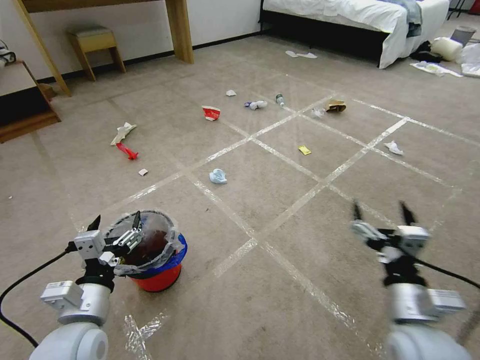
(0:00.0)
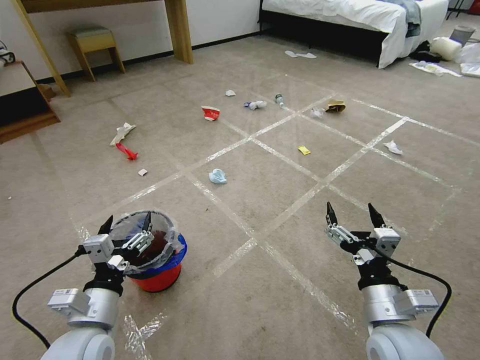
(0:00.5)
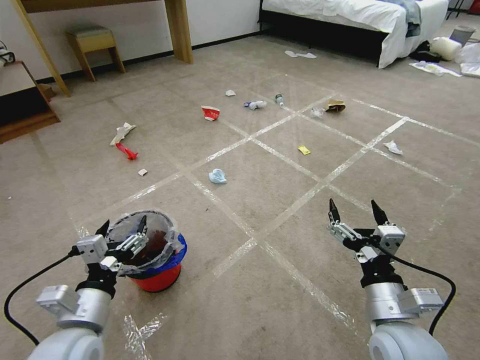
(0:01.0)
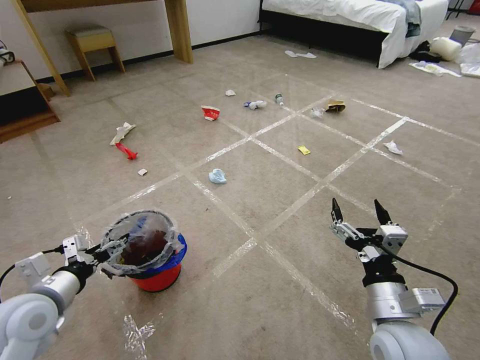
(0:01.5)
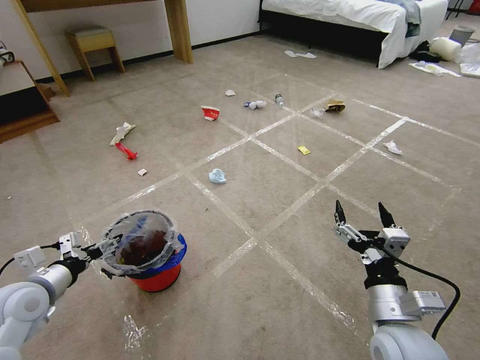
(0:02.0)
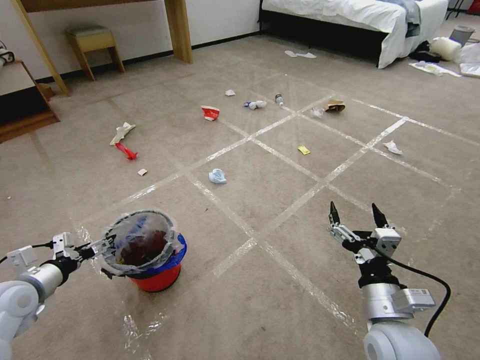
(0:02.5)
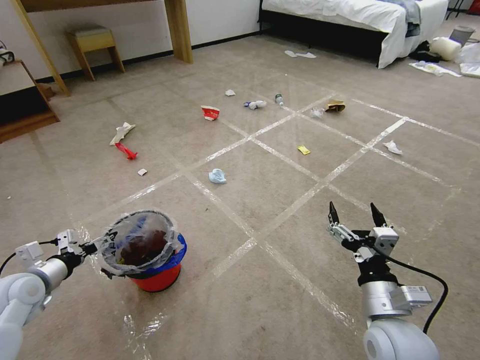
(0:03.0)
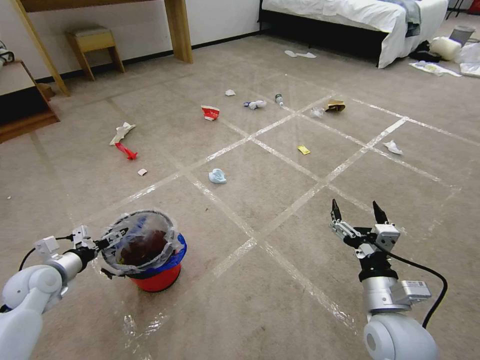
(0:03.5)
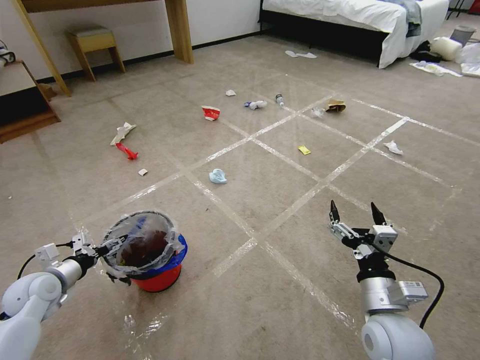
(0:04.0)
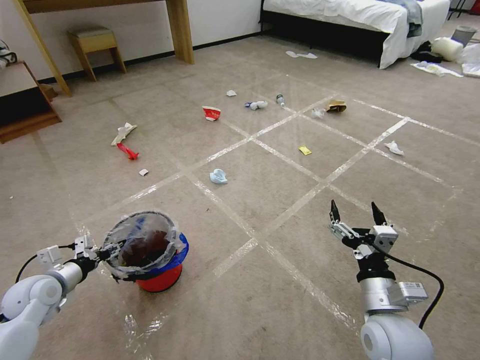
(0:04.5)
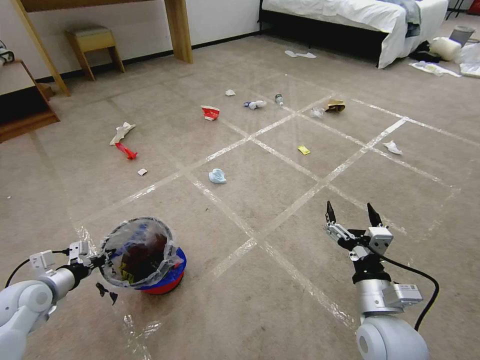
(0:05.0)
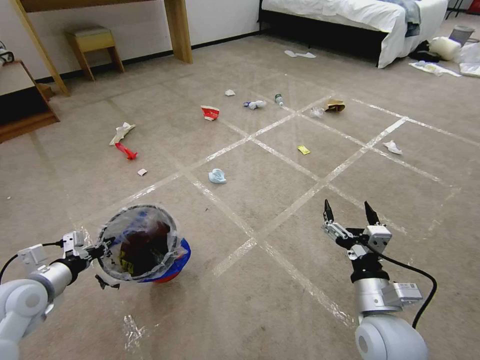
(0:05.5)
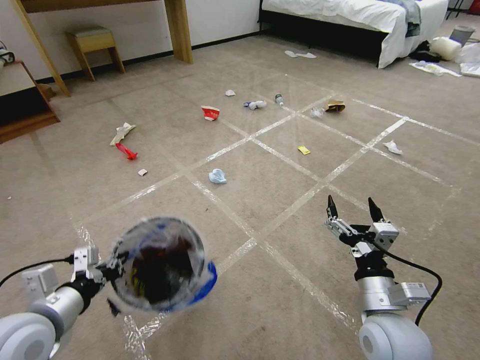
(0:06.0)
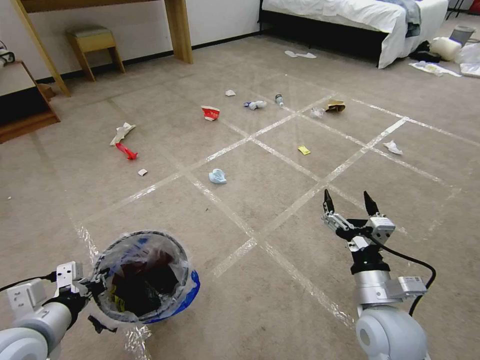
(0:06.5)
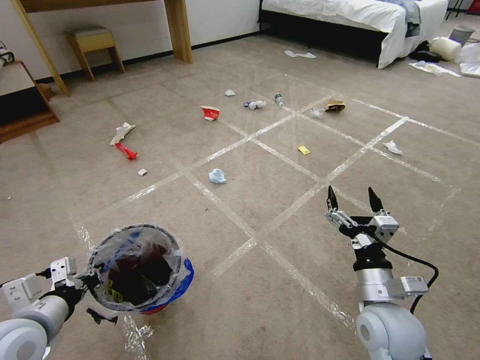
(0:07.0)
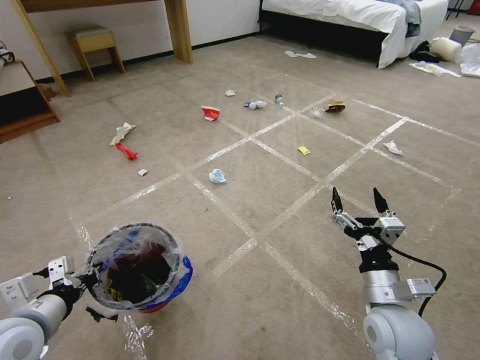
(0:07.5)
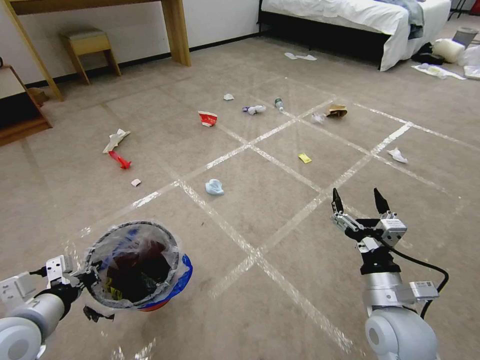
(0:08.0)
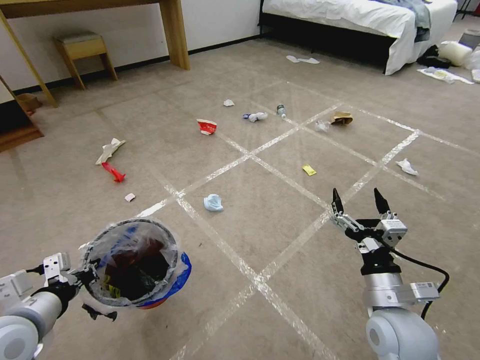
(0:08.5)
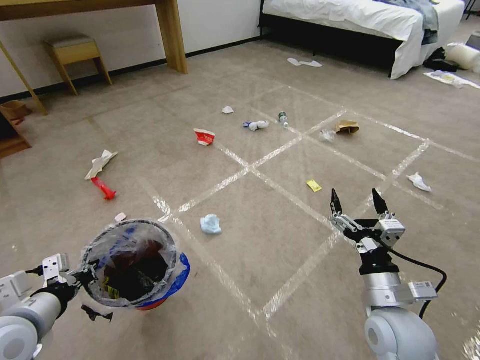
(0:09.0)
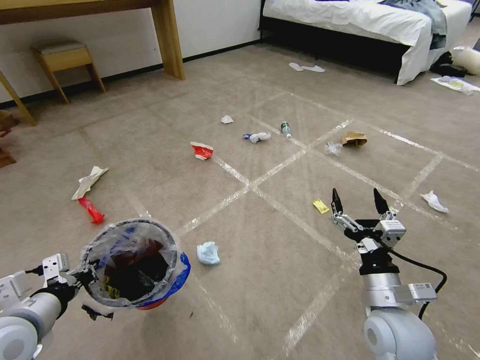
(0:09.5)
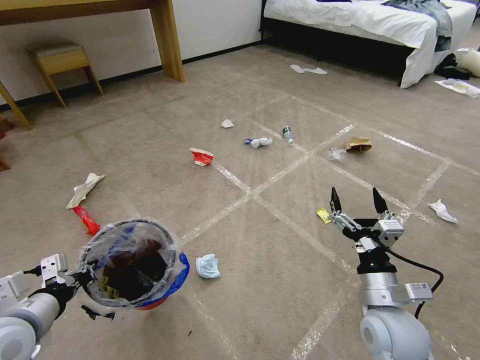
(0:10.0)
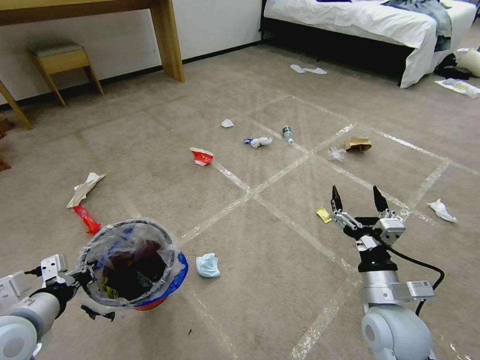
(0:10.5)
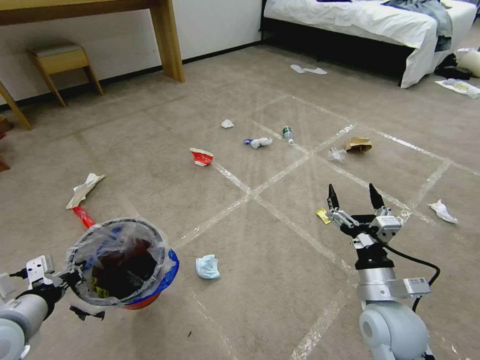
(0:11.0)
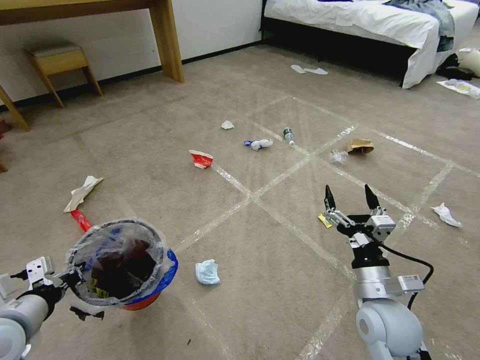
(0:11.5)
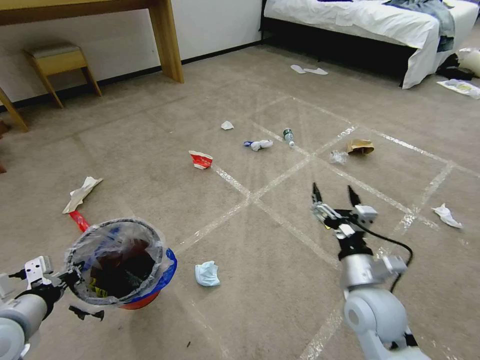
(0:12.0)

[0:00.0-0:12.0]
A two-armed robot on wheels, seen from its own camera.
Task of the whole recording: Pick up the trash bin and place the garbage on the floor into it.
0:02.0 to 0:04.0: The left gripper travels downward and forward by about 10 cm.
0:04.0 to 0:06.0: The left gripper heads to the right, backward and upward, covering roughly 20 cm, and closes.
0:10.0 to 0:12.0: The grippers stay close to where they were, moving slightly.

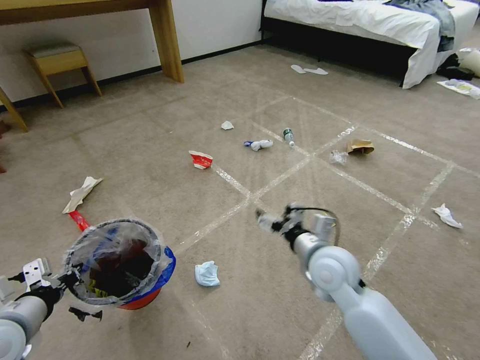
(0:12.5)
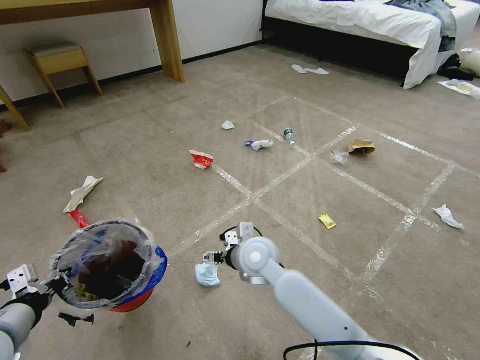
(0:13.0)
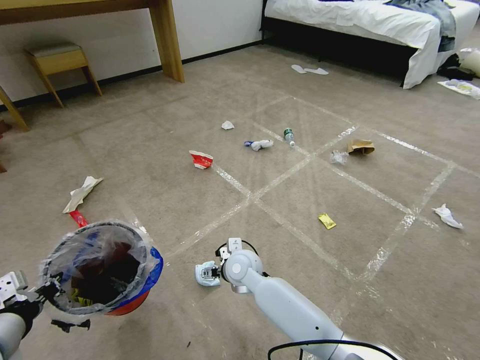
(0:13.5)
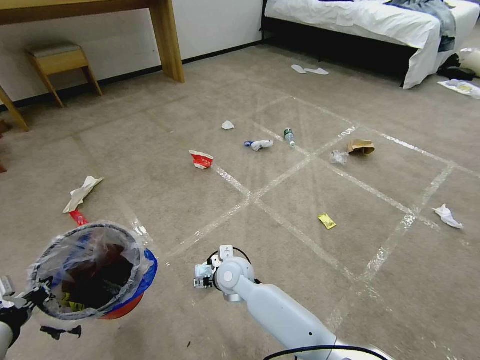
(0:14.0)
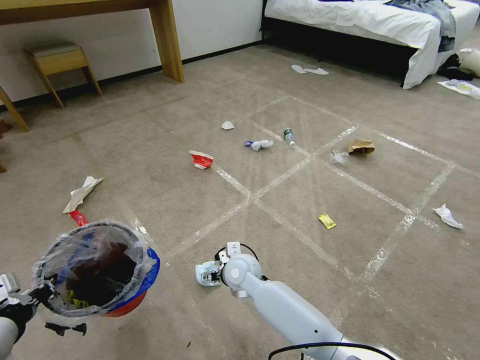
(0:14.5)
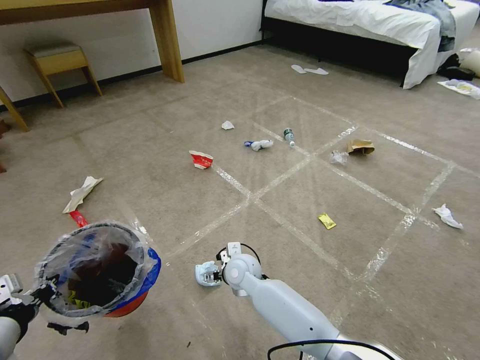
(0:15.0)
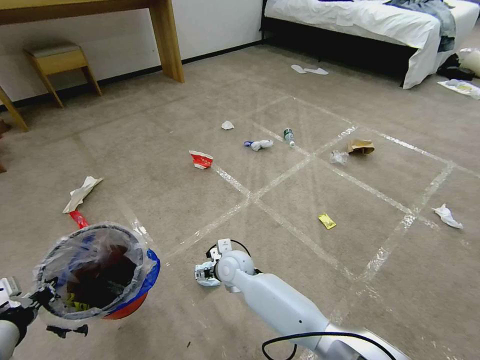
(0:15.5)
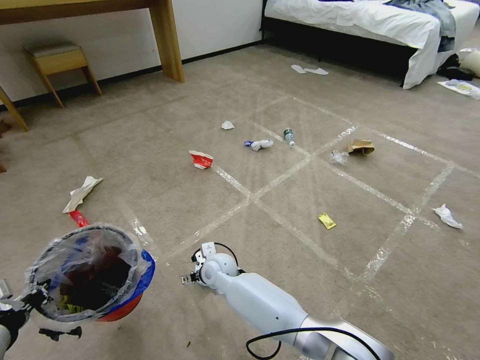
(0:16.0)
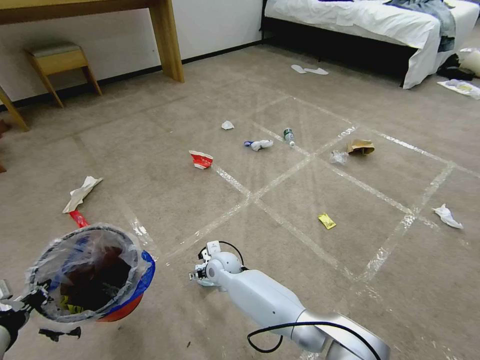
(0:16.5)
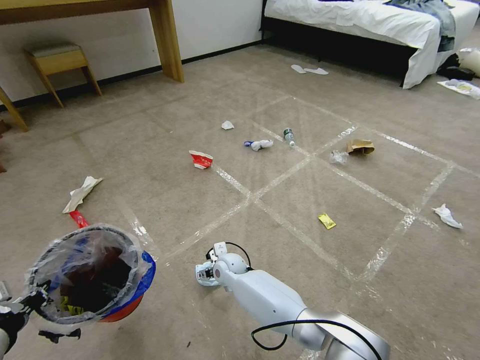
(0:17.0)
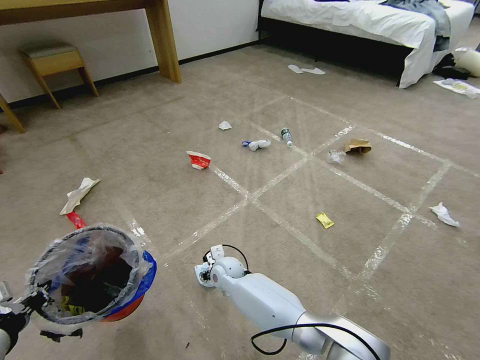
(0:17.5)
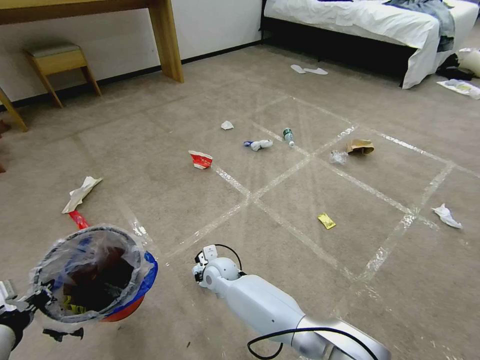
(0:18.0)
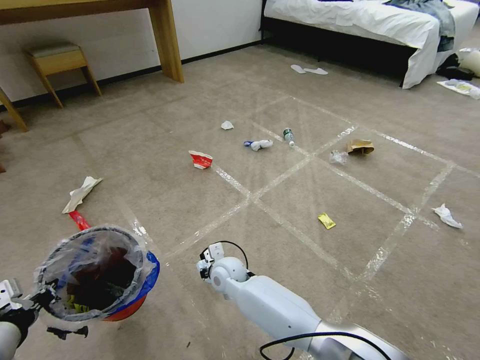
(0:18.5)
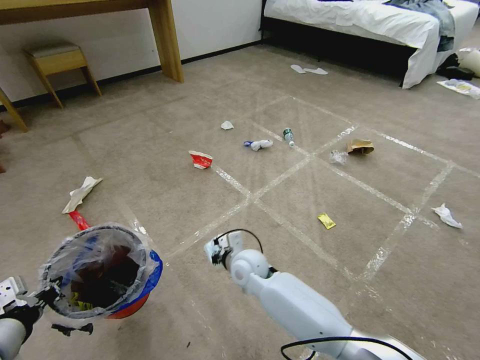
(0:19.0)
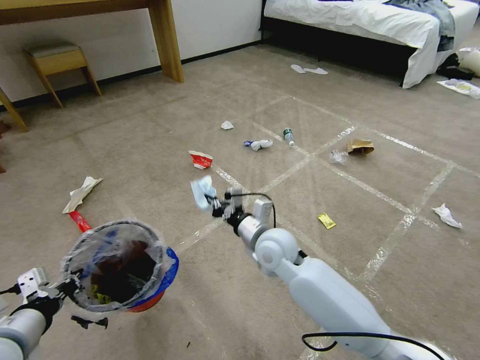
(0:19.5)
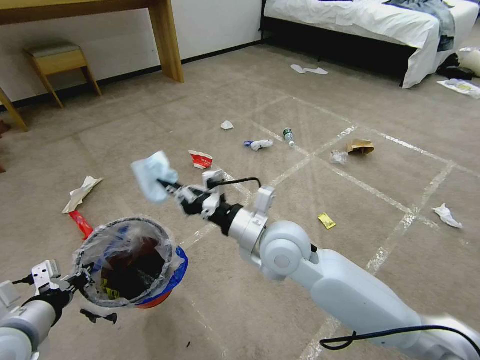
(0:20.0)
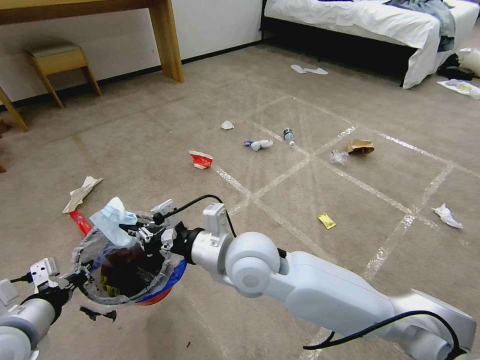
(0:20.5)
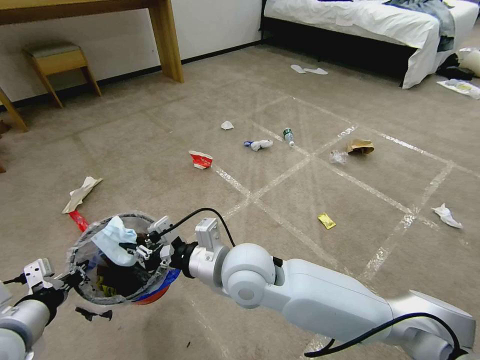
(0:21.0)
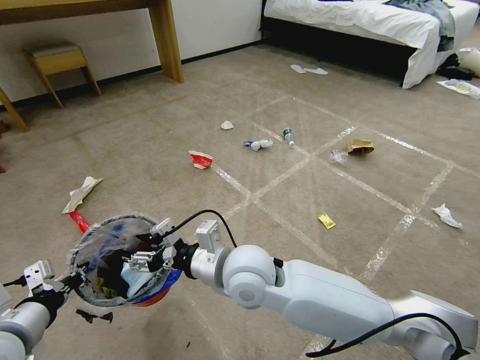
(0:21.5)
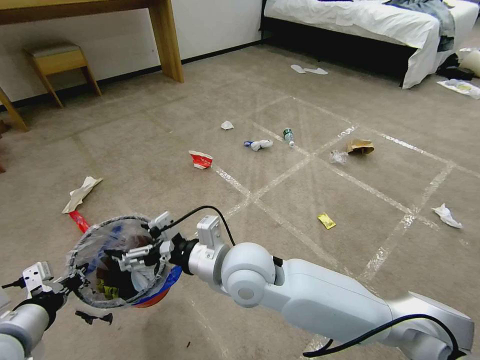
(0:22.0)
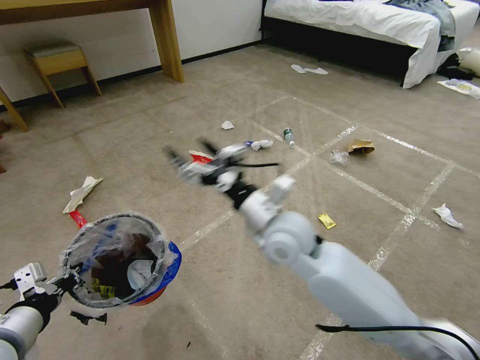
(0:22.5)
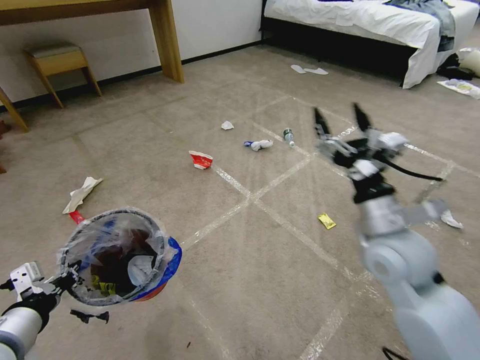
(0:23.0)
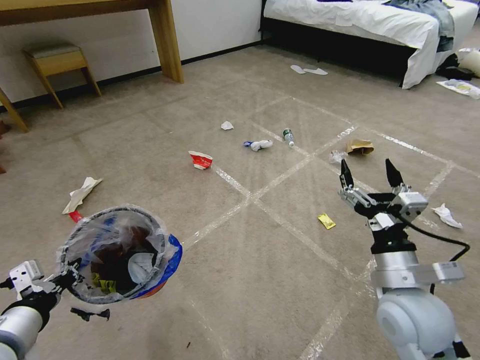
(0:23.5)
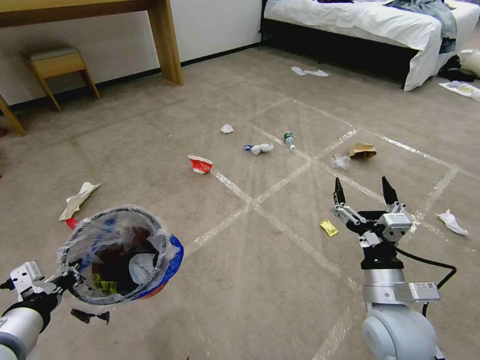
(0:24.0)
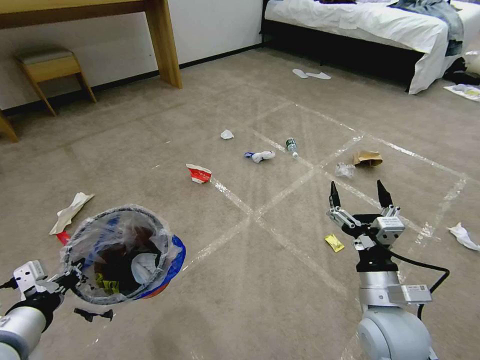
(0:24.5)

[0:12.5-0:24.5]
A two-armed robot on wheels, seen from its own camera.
Task of the whole recording: Pick up the trash bin and place the garbage on the floor into it.
0:12.5 to 0:14.5: The right gripper heads to the left and downward, covering roughly 20 cm.
0:14.5 to 0:16.5: The right gripper goes about 10 cm downward and to the left.
0:16.5 to 0:18.5: The right gripper closes its fingers.
0:18.5 to 0:20.5: The right gripper heads upward, covering roughly 25 cm.
0:20.5 to 0:22.5: The right gripper goes approximately 10 cm to the right and forward, and opens up.
0:22.5 to 0:24.5: The right gripper is displaced to the right, backward and downward by some 25 cm.

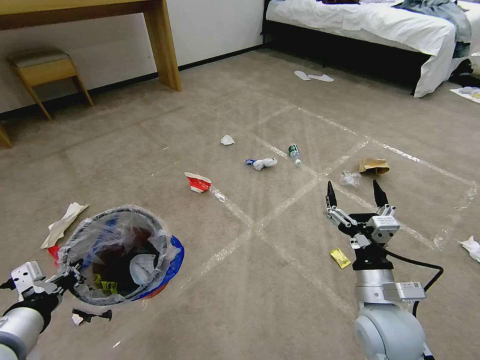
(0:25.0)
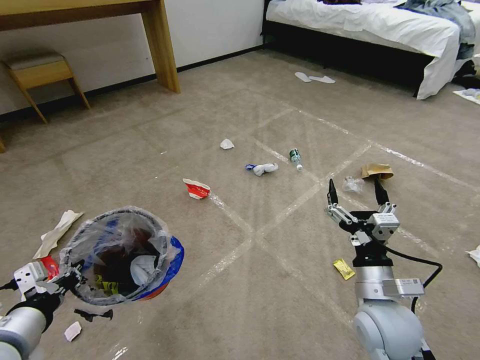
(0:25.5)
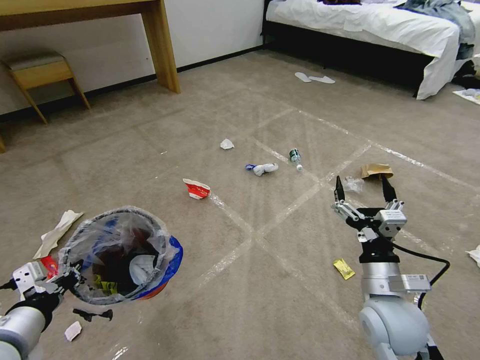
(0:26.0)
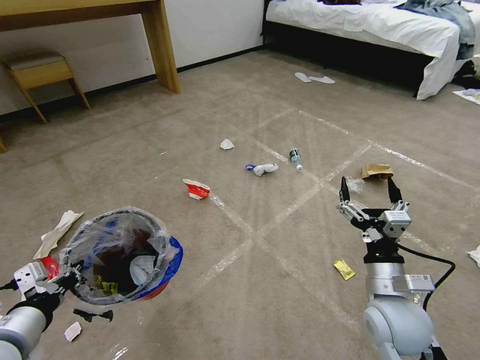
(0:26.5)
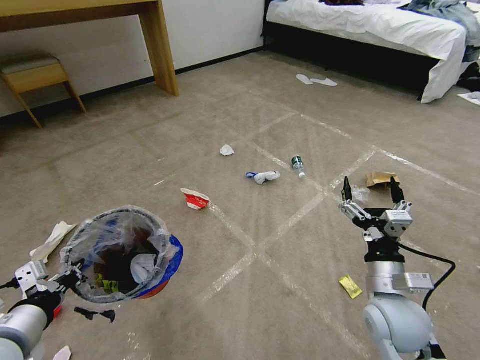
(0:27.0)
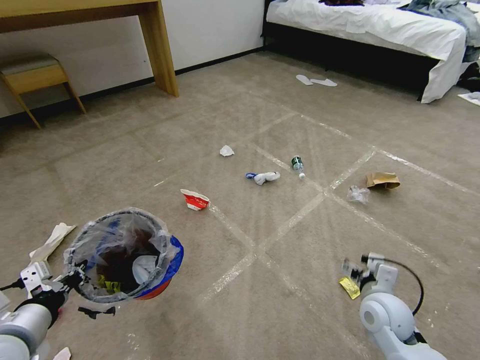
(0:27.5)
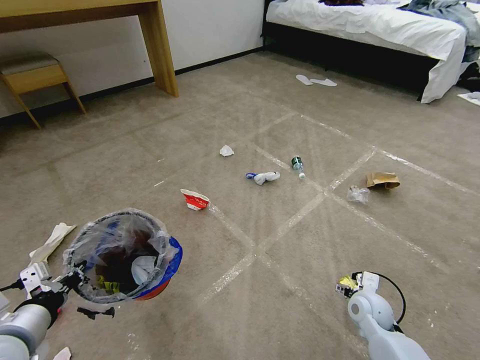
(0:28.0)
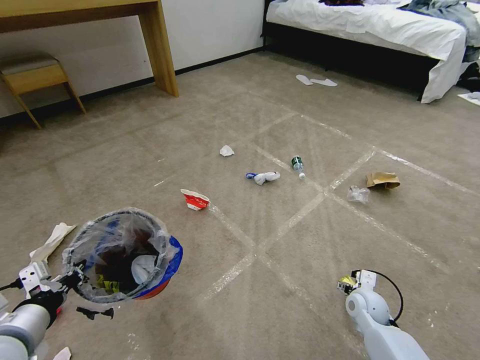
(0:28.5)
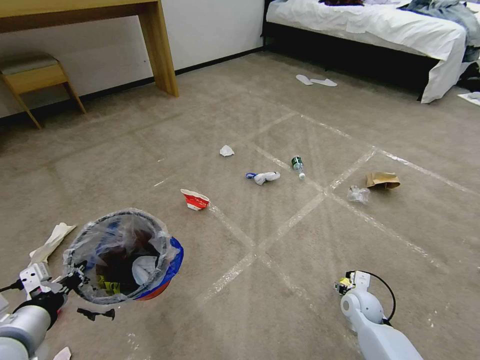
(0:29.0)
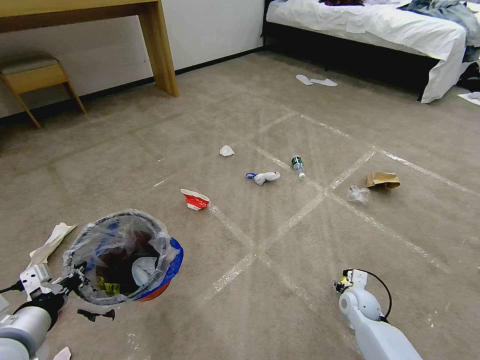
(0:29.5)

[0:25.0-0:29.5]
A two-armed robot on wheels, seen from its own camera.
Task of the whole recording: Pick up the trash bin and place the garbage on the floor into it.
0:25.0 to 0:27.0: The grippers stay close to where they were, moving slightly.
0:27.0 to 0:29.5: The right gripper heads downward and forward, covering approximately 25 cm.
